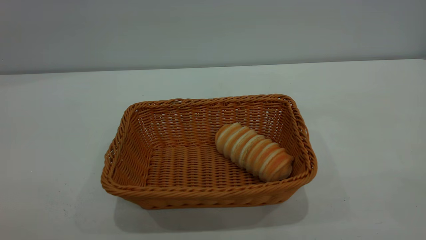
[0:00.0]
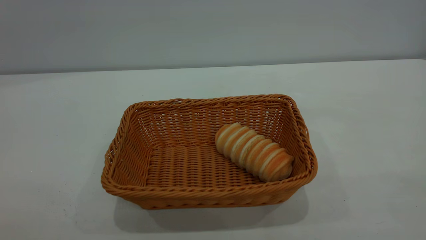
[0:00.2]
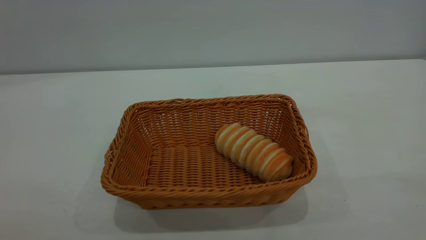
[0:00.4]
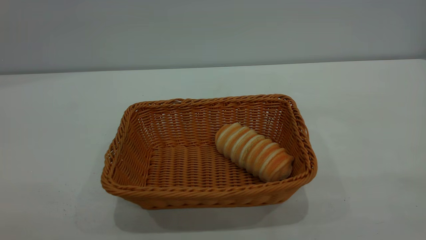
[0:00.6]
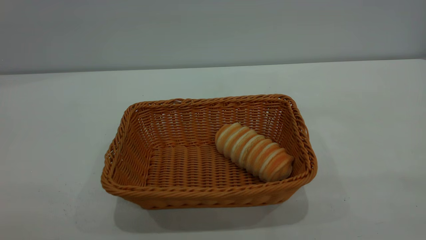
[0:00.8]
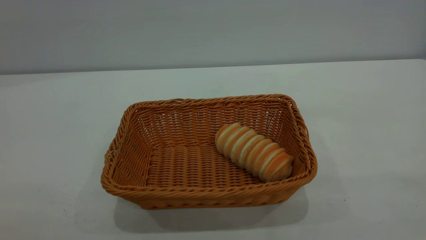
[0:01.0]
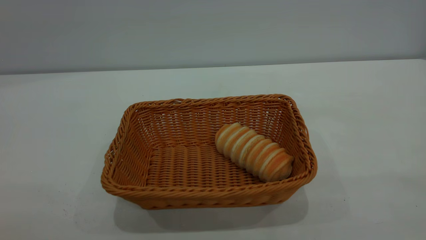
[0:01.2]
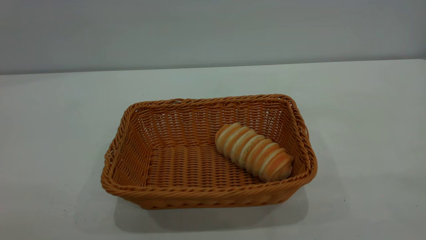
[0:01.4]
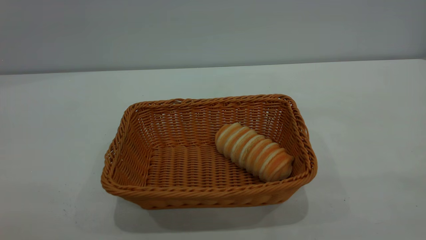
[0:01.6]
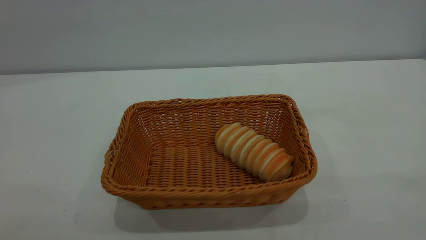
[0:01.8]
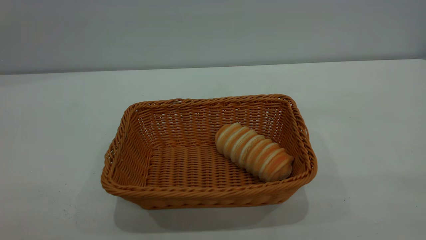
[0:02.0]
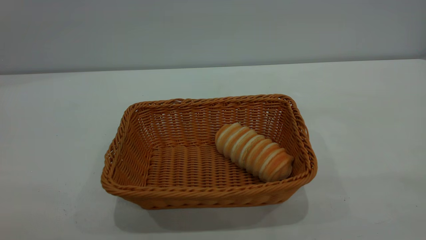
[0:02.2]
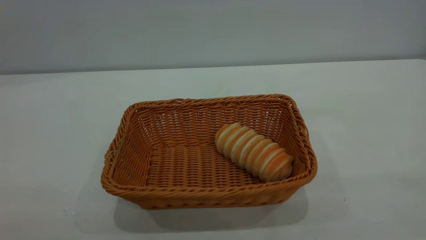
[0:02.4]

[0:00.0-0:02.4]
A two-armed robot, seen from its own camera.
Task of the whole recording: One hand grasps the yellow basket and places it in the middle of the table, while the other hand picks up the long bread and puts it into the yellow basket.
0:01.2 to 0:02.4: Both grippers stay about where they are.

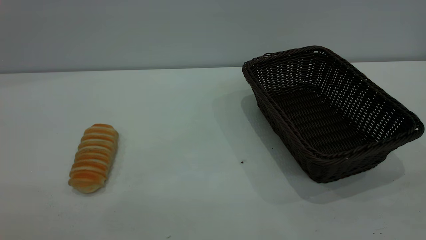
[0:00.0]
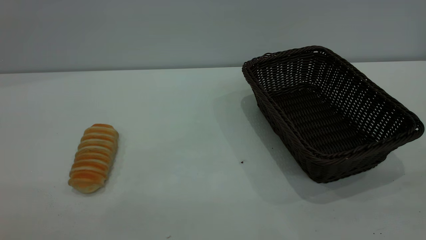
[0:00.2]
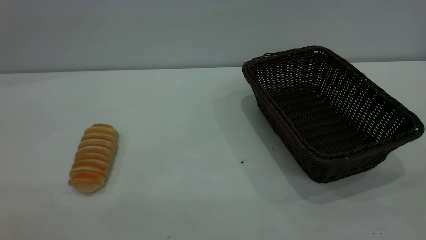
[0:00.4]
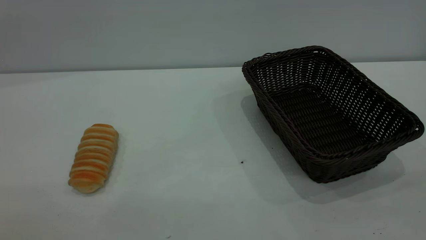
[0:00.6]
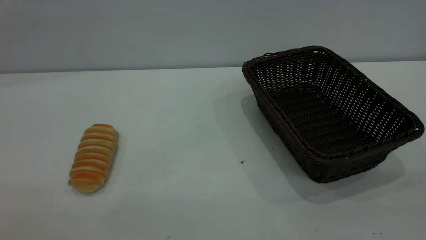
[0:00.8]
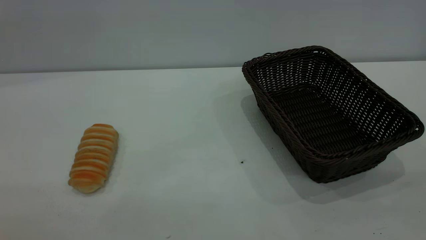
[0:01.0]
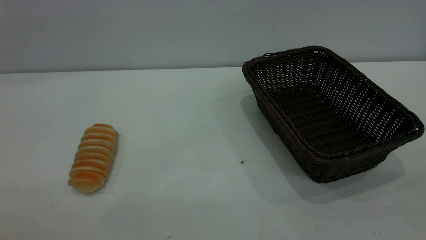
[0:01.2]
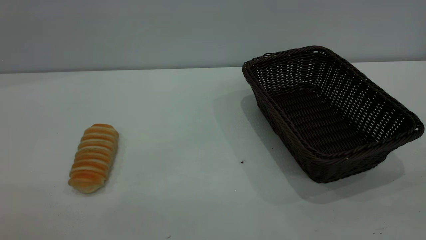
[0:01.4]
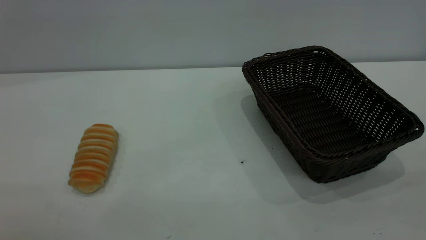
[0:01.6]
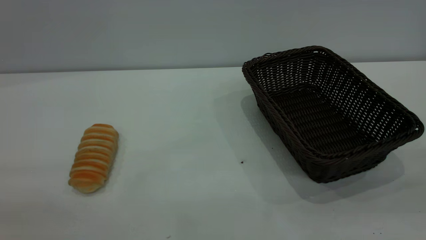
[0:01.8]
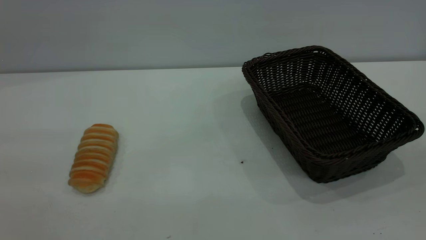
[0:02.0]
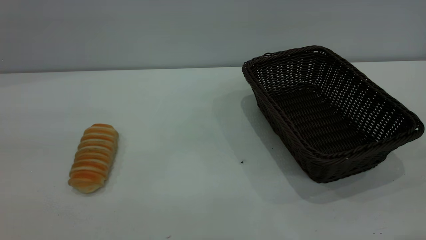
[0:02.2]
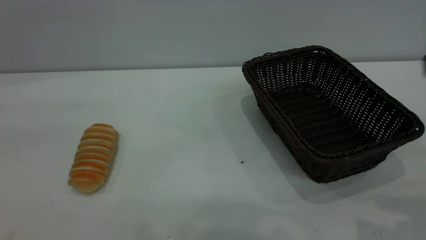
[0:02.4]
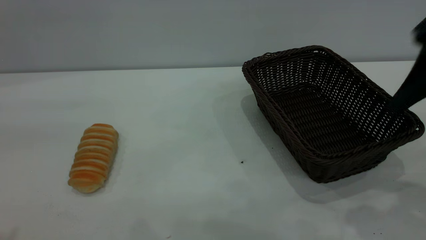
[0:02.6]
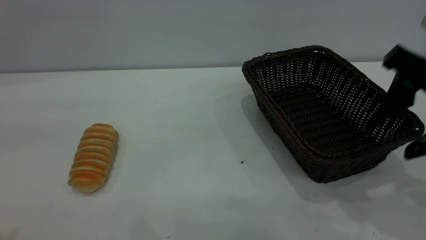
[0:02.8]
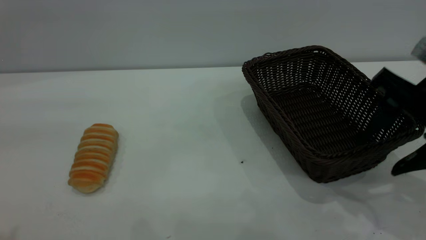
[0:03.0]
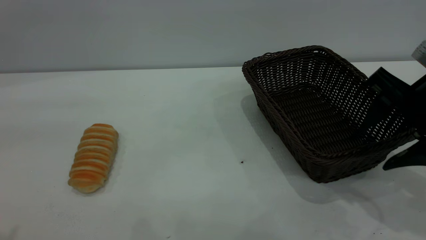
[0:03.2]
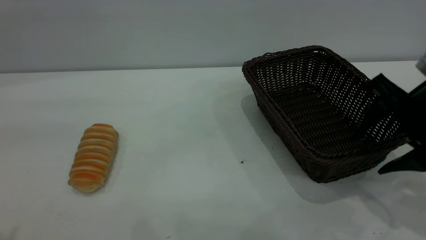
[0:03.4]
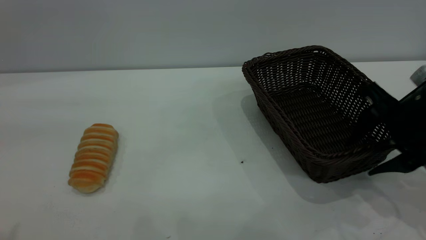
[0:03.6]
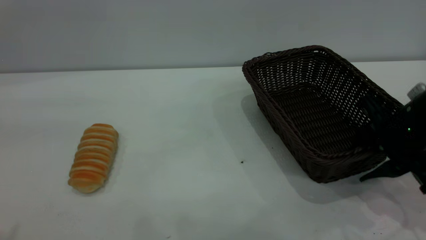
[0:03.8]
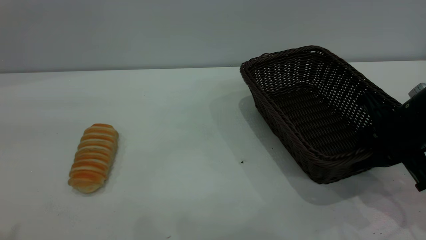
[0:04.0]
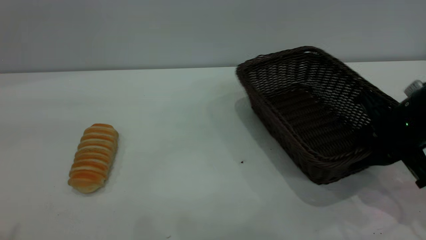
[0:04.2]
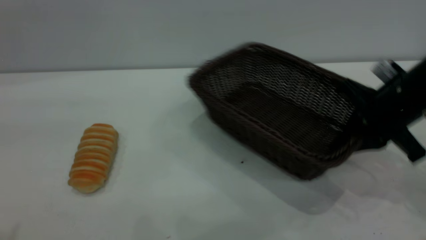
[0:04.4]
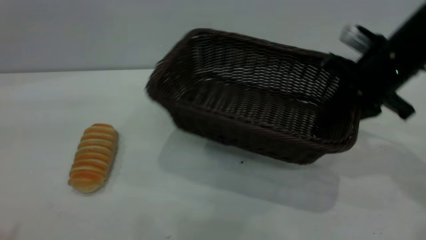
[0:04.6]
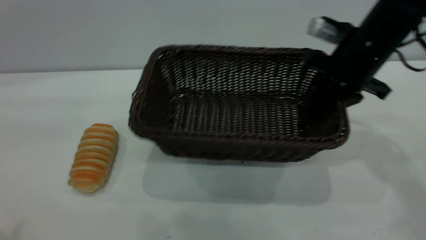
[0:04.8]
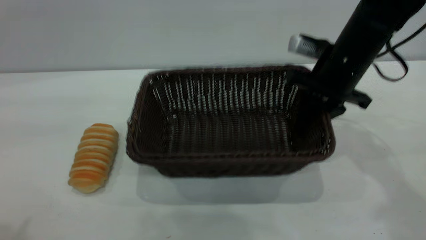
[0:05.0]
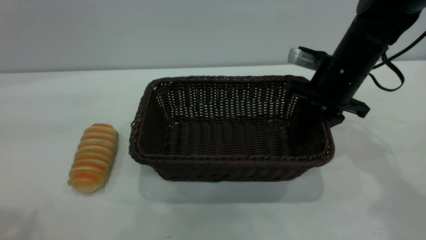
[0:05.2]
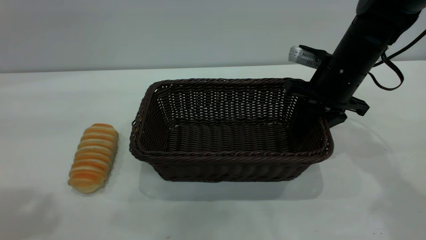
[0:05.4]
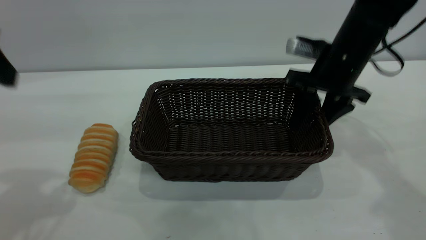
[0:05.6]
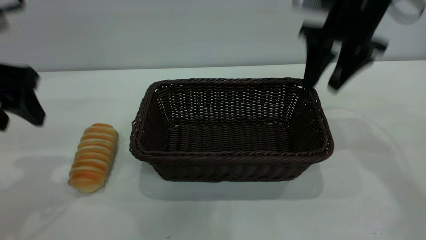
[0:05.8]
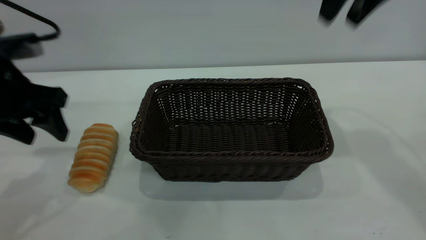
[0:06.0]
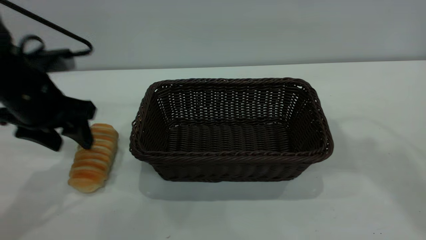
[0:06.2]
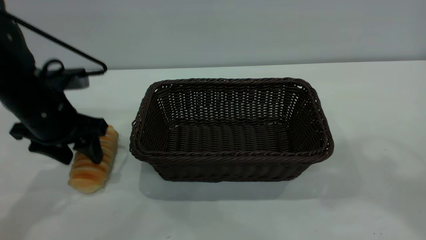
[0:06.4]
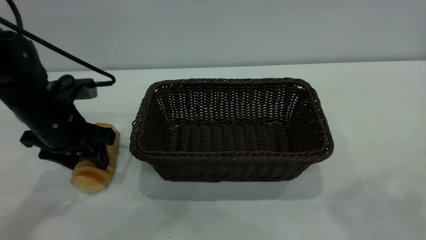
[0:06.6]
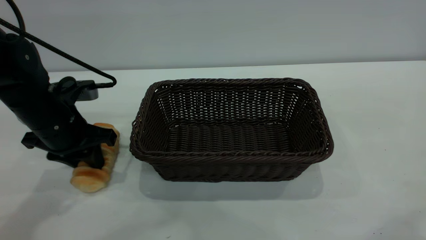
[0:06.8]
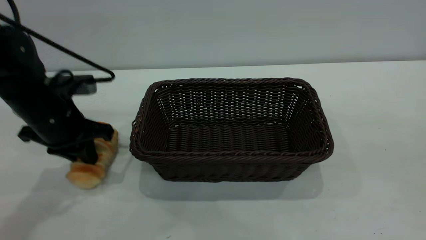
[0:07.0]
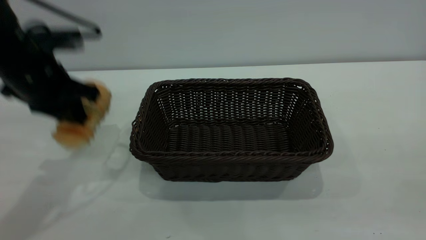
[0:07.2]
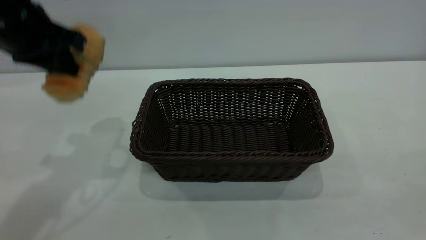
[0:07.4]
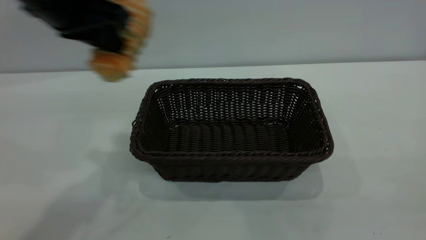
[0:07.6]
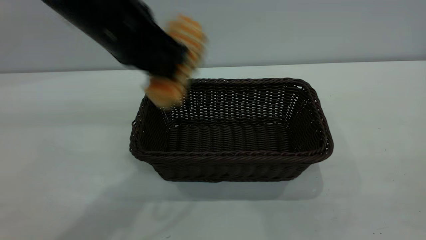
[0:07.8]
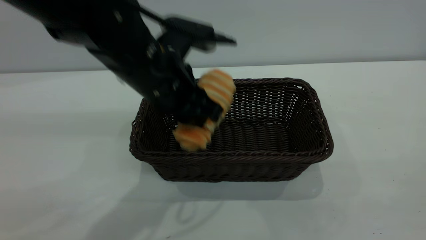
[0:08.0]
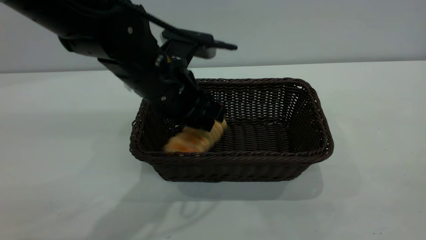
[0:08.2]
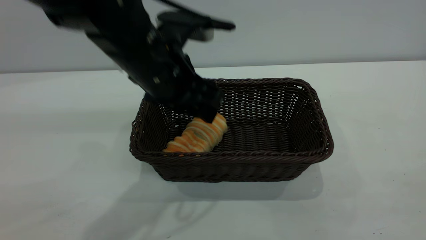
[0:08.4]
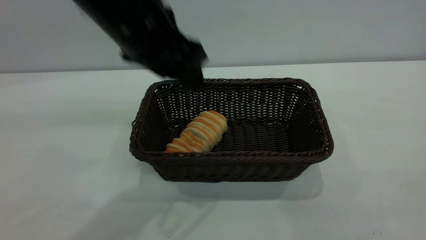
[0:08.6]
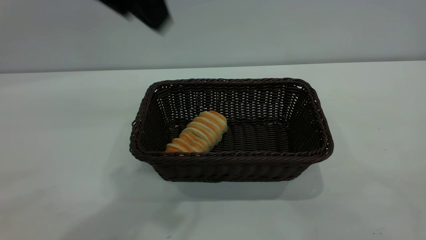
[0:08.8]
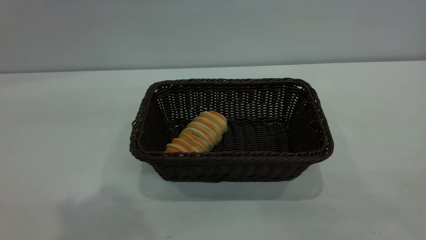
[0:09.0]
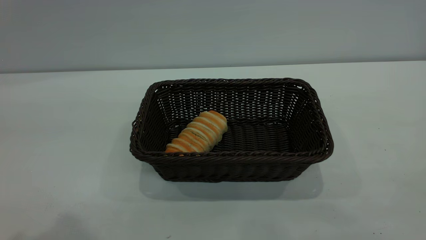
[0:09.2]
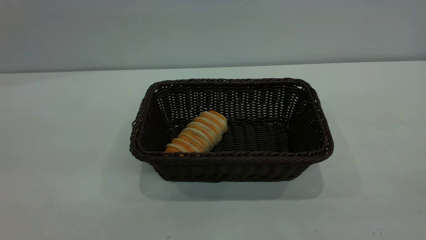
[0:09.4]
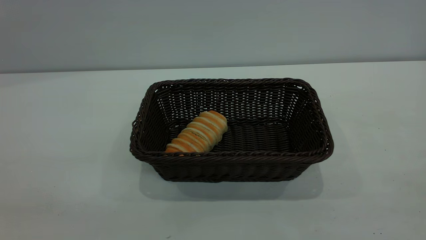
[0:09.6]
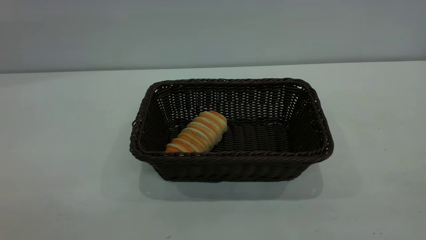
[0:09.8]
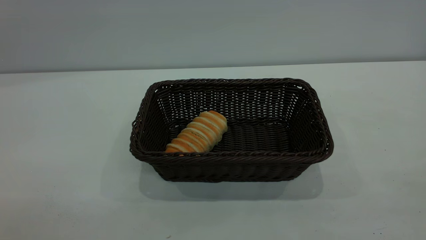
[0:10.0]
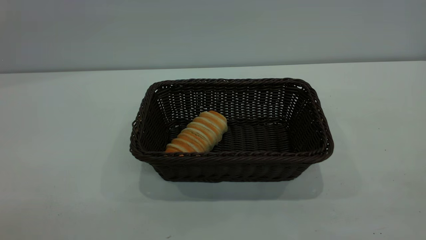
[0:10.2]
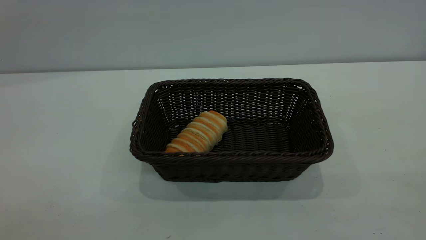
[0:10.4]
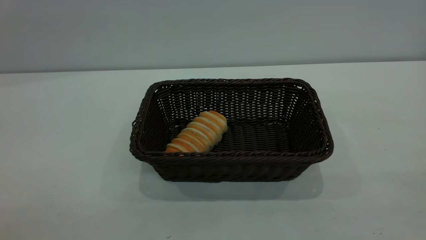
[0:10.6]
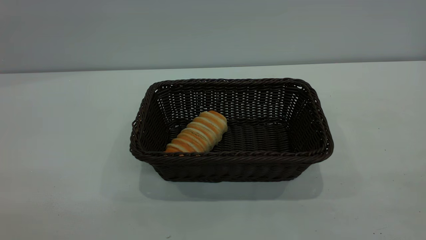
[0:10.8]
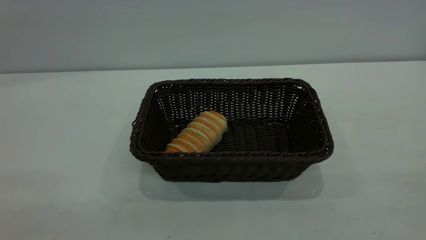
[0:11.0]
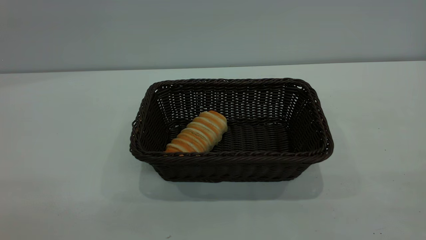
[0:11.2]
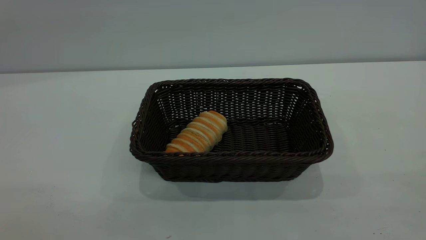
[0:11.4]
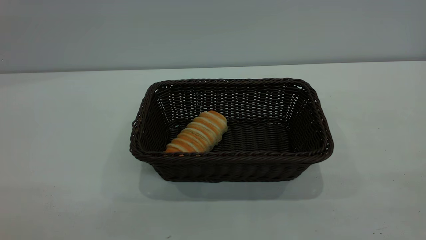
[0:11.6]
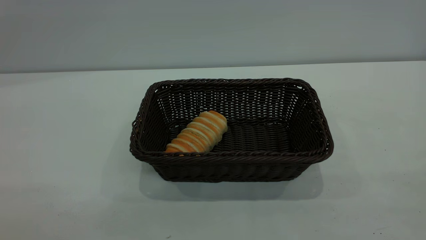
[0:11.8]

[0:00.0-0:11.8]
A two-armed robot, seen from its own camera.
Task of the whole recording: One hand grasps the black basket and places it in the middle of the table, while the other hand picks up the long bread and puts it into the black basket.
Step, 0:00.0 to 0:05.6: Move the basket to the center of view.
Step, 0:07.4 to 0:08.6: place the bread into the basket.
0:00.0 to 0:01.4: Neither gripper changes place.
0:01.4 to 0:03.0: The right gripper heads forward and downward, covering about 30 cm.
0:03.0 to 0:04.4: The right gripper moves forward, about 5 cm, and closes up.
0:04.4 to 0:06.0: The right gripper shifts some 20 cm upward, and opens up. Meanwhile the left gripper travels downward and forward by about 25 cm.
0:06.0 to 0:07.4: The right gripper goes about 35 cm backward. The left gripper moves upward, approximately 10 cm, and closes up.
0:07.4 to 0:08.8: The left gripper shifts approximately 15 cm to the right, upward and backward, and opens.
0:08.8 to 0:10.4: The left gripper shifts some 30 cm backward and to the left.
